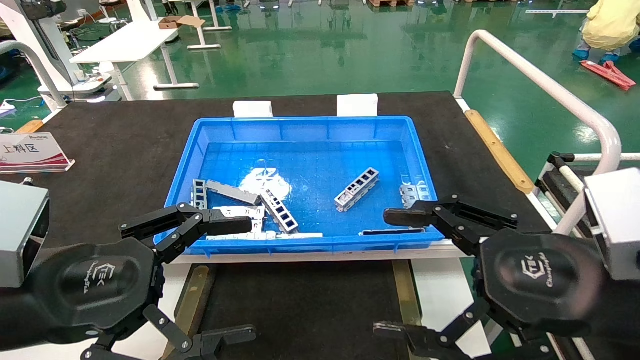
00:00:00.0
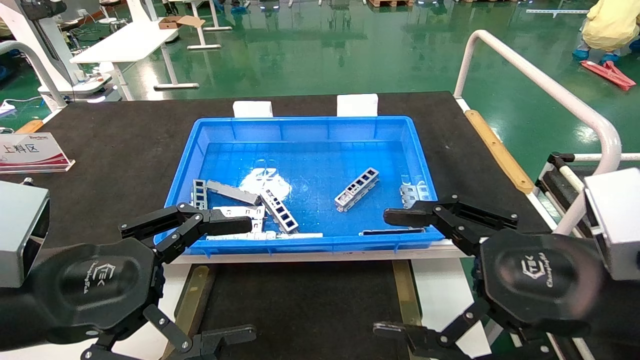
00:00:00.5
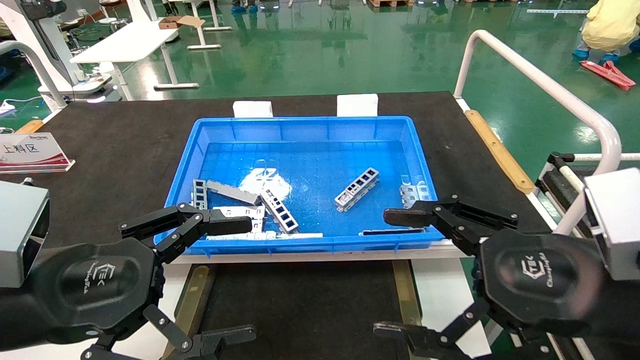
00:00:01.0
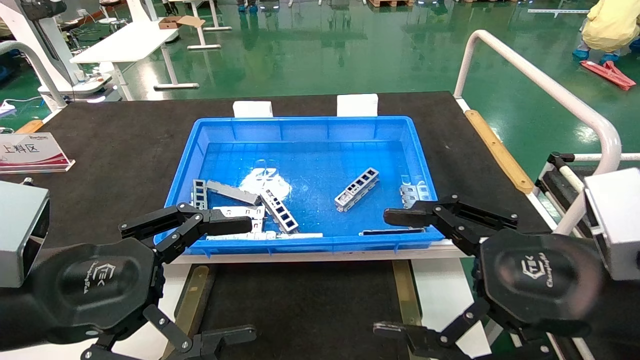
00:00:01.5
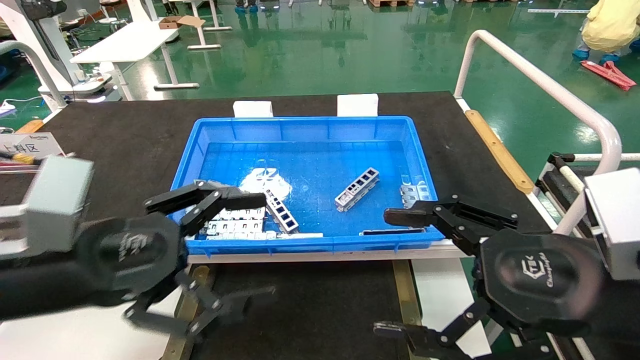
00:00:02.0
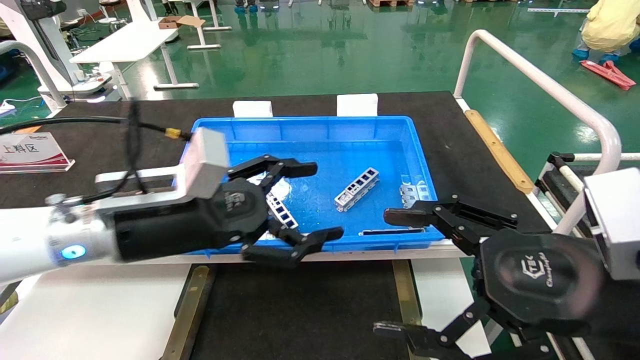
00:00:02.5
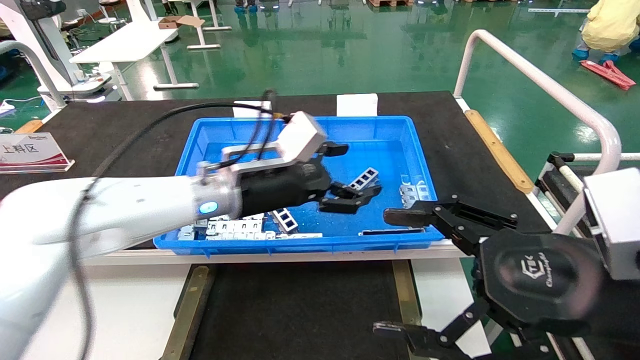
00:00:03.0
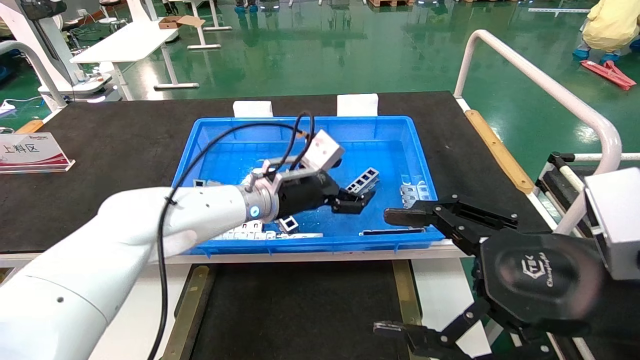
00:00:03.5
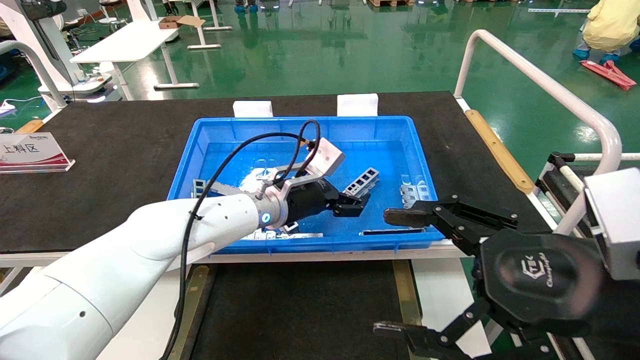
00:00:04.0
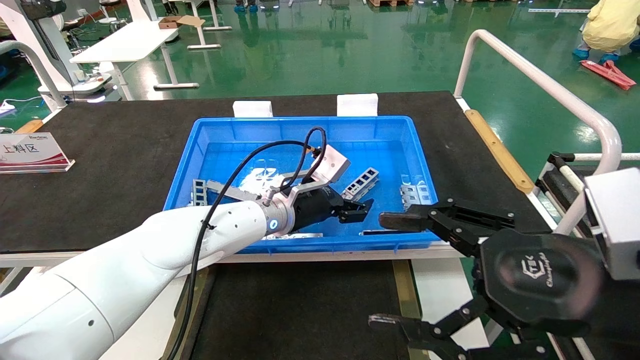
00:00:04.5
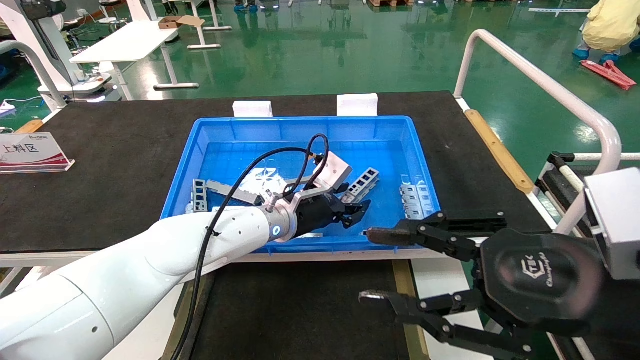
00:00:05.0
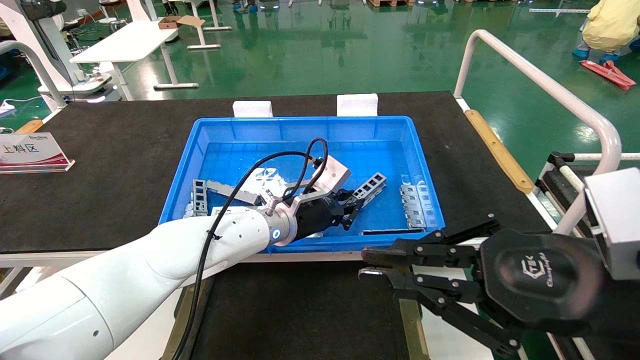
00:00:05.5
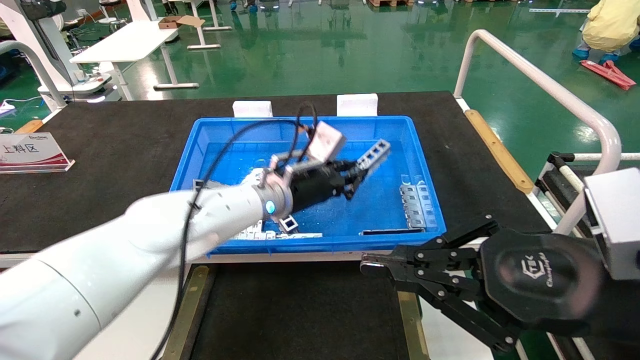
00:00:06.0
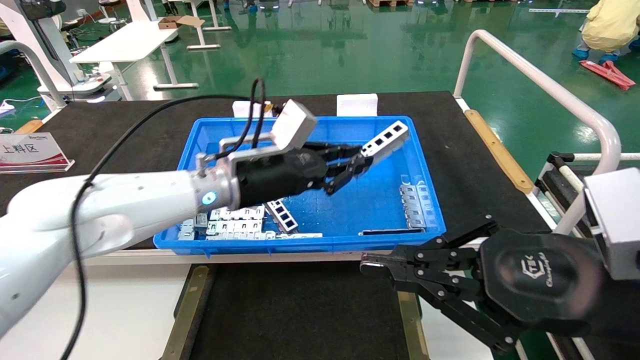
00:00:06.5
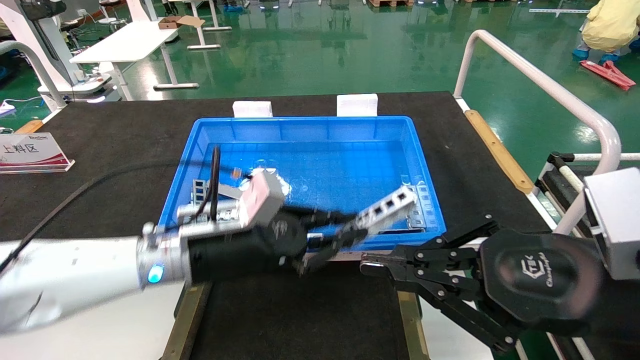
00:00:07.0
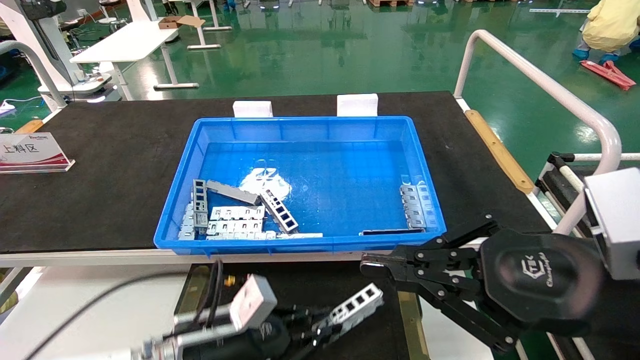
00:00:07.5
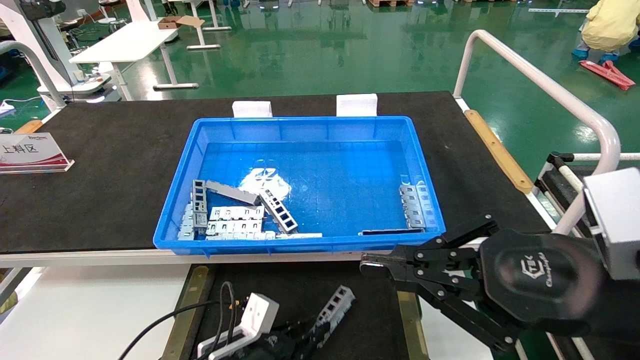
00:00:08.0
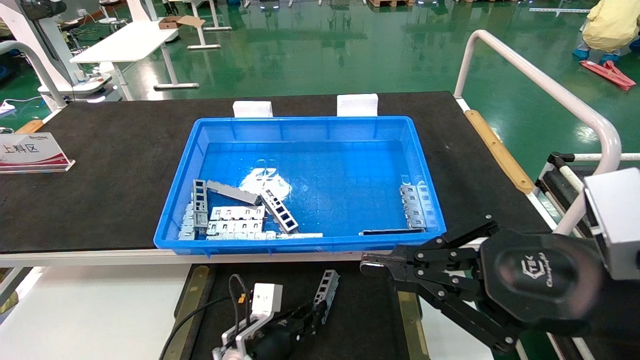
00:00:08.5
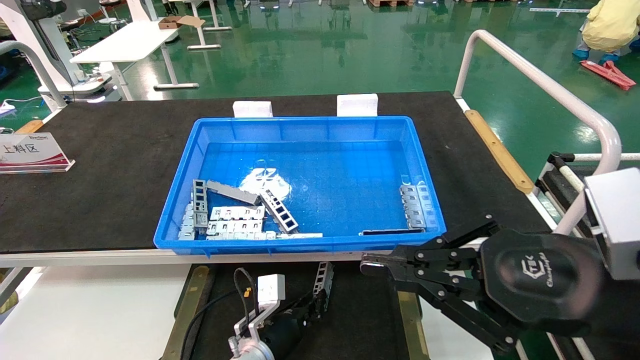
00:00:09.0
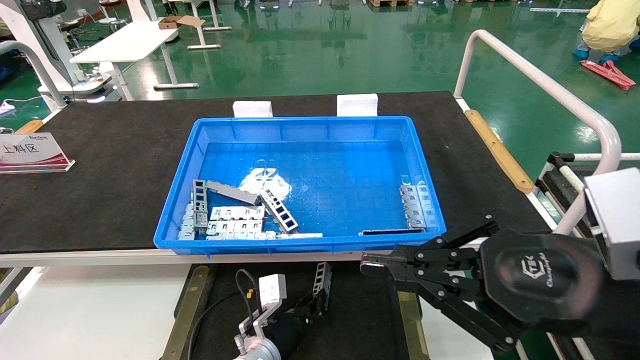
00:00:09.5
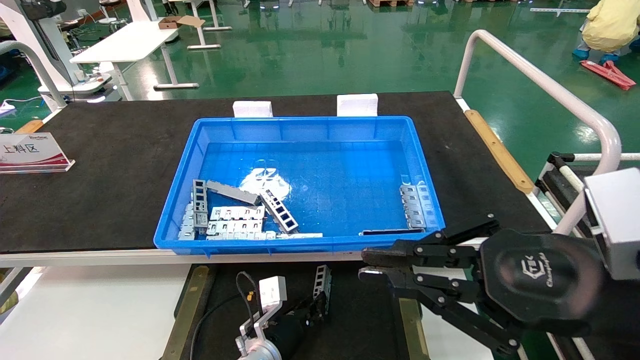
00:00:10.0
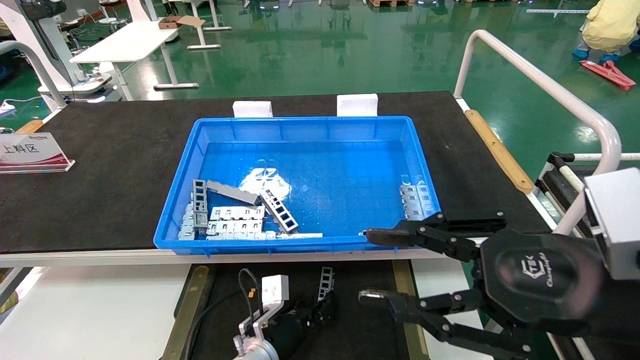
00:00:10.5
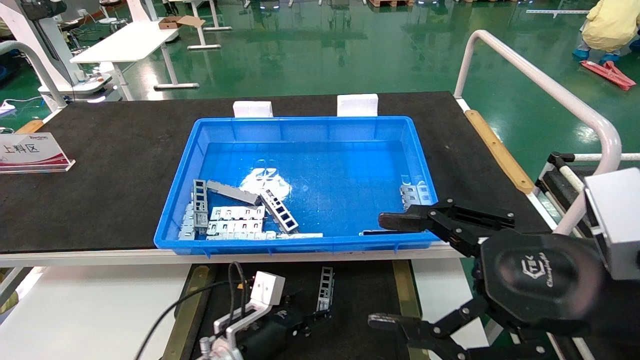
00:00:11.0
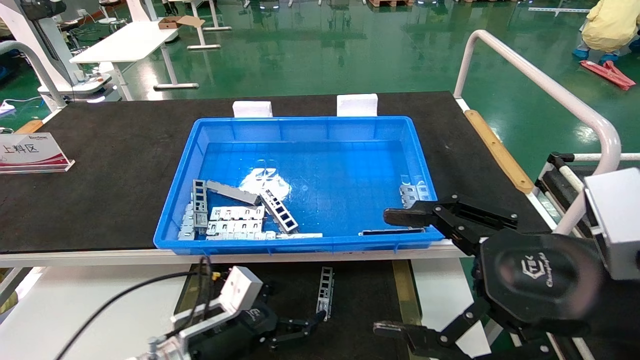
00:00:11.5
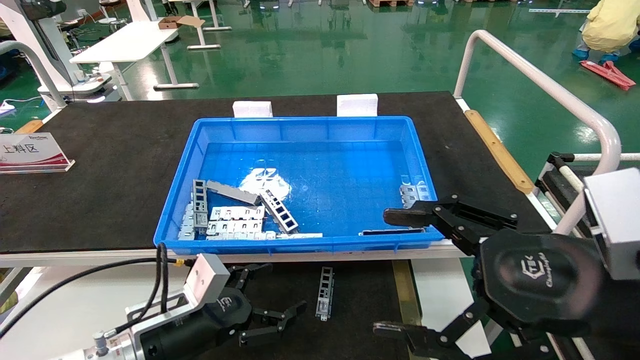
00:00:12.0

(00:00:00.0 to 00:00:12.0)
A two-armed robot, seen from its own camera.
Task of the whole recording: Grasp the part with one hand and place it on the black container.
Step, 00:00:02.0 - 00:00:05.0: Pick up the front USB bracket from the feeding area.
Step, 00:00:05.5 - 00:00:10.5: Place the front USB bracket into the box.
00:00:00.0 - 00:00:02.0: The grippers stay close to where they were, moving slightly.
00:00:02.0 - 00:00:04.0: The left gripper is displaced forward and to the right by roughly 30 cm.
00:00:04.0 - 00:00:06.0: The right gripper closes, while the left gripper closes.
00:00:06.0 - 00:00:08.0: The left gripper is displaced downward and backward by approximately 30 cm.
00:00:08.0 - 00:00:10.0: The left gripper heads forward and to the right, covering some 10 cm.
00:00:10.0 - 00:00:12.0: The left gripper shifts about 20 cm to the left, upward and backward, and opens up. Meanwhile the right gripper opens.
